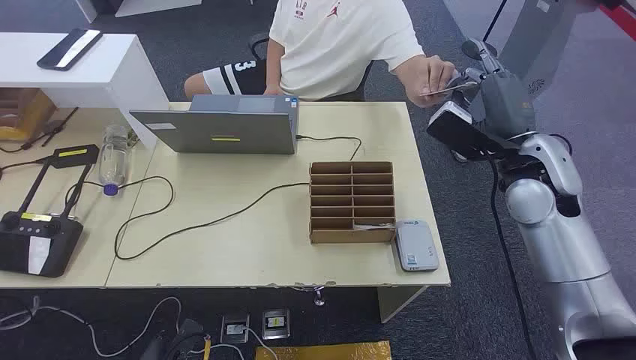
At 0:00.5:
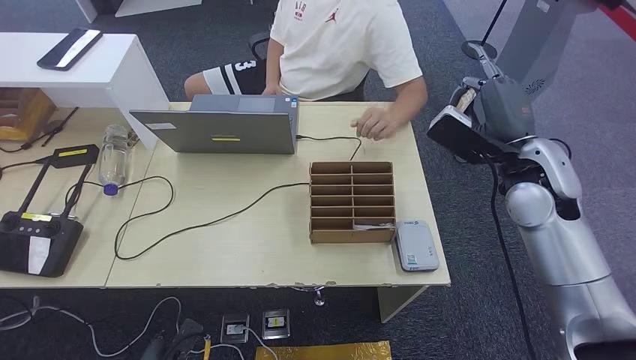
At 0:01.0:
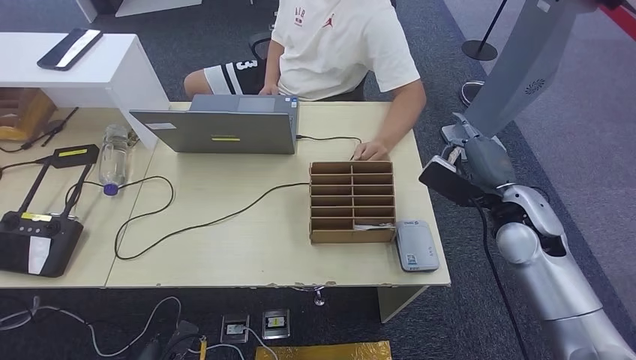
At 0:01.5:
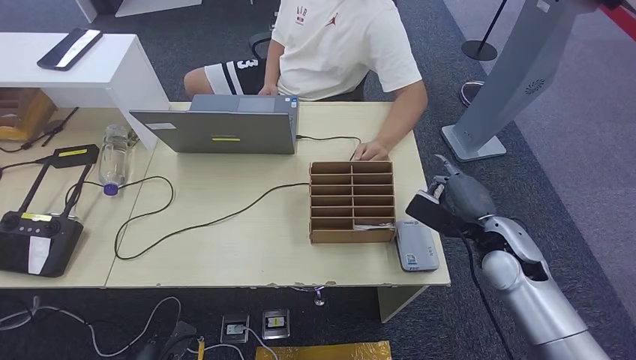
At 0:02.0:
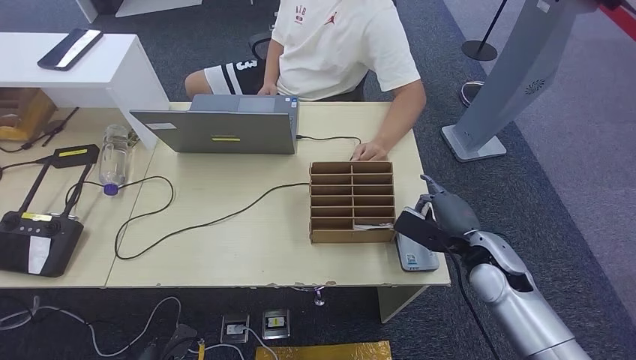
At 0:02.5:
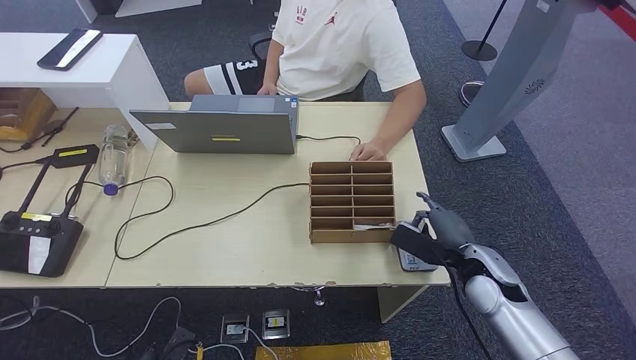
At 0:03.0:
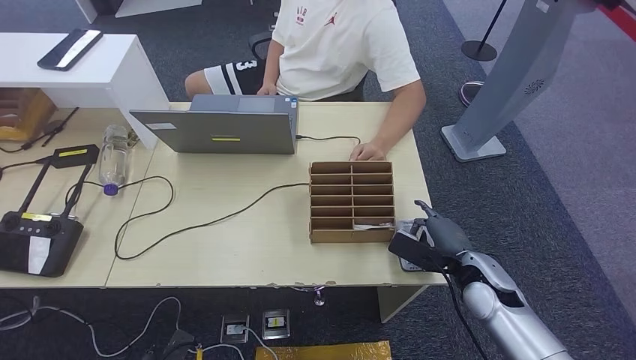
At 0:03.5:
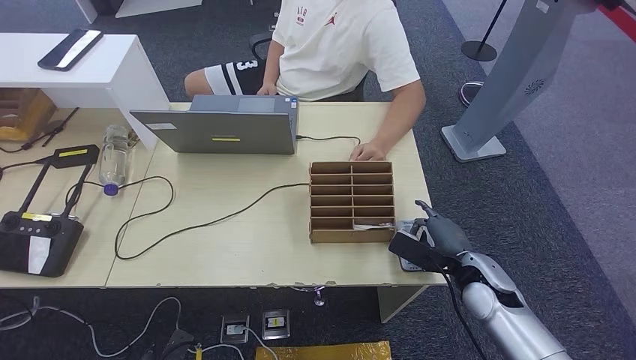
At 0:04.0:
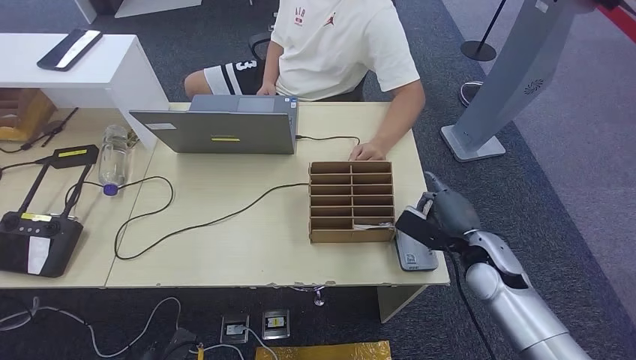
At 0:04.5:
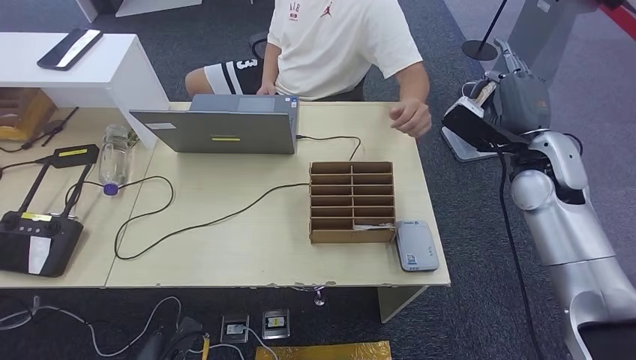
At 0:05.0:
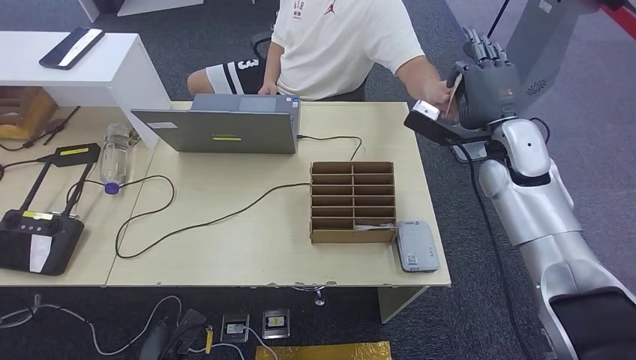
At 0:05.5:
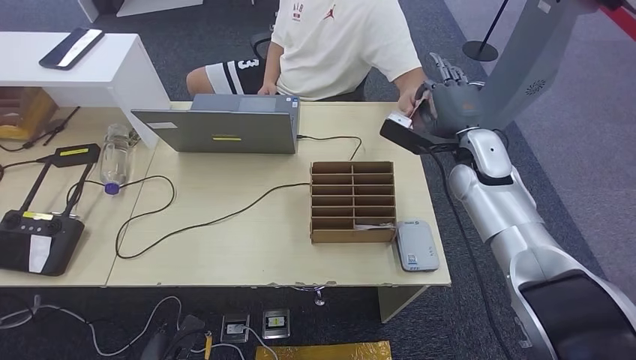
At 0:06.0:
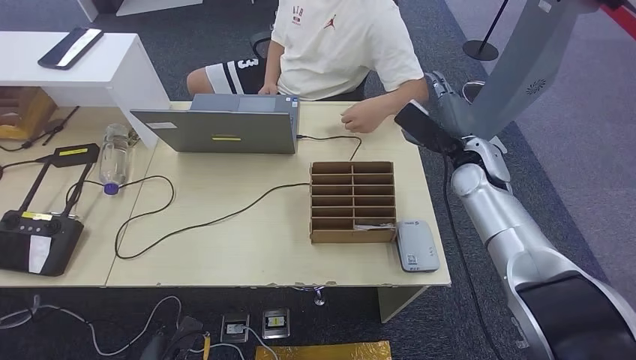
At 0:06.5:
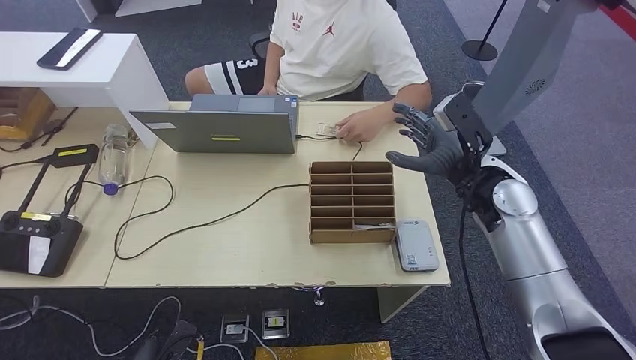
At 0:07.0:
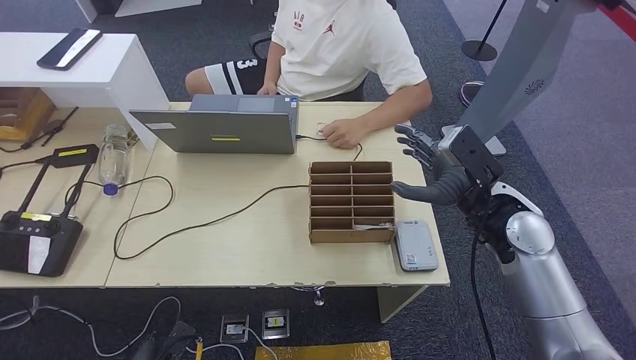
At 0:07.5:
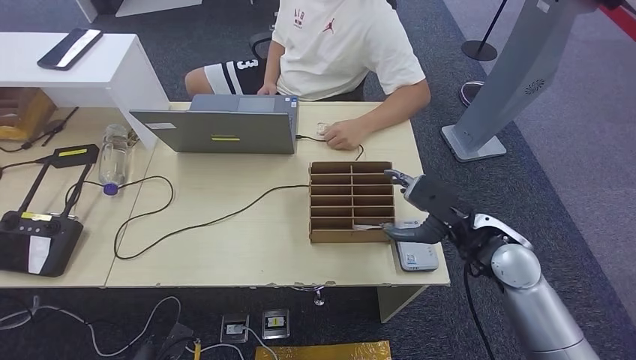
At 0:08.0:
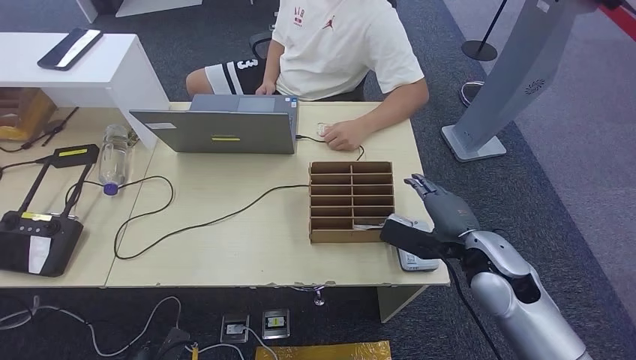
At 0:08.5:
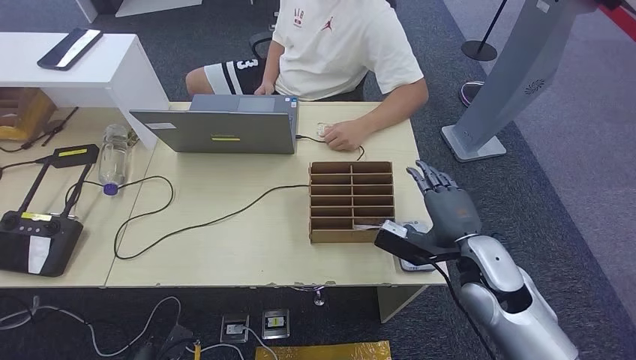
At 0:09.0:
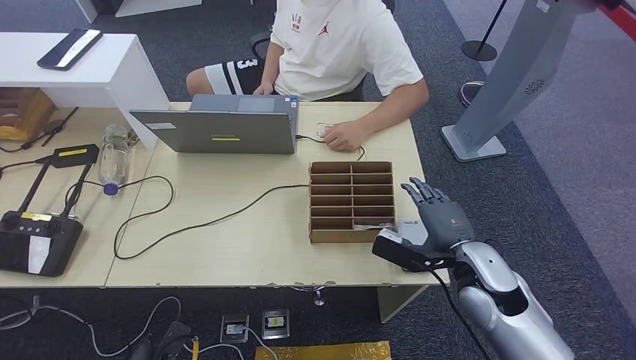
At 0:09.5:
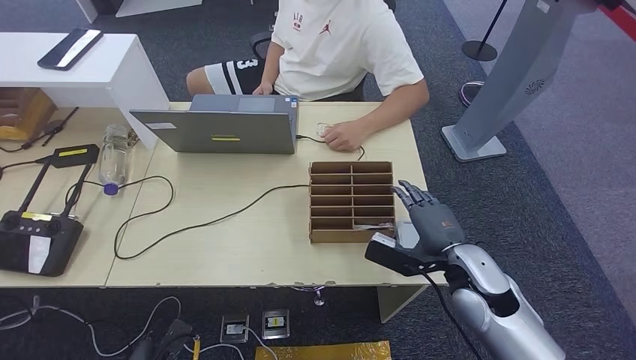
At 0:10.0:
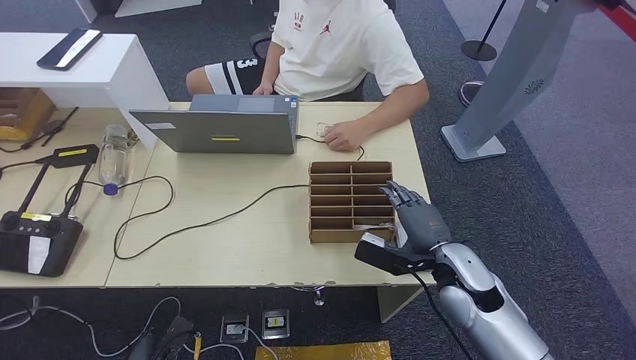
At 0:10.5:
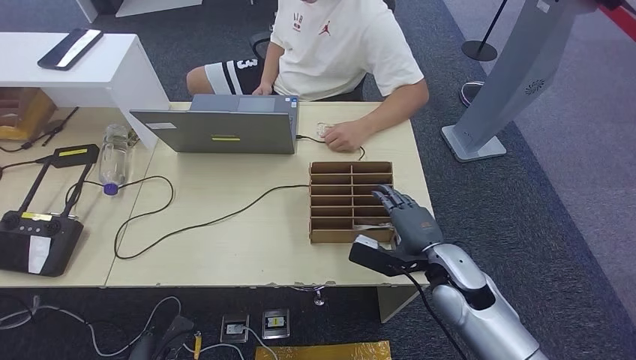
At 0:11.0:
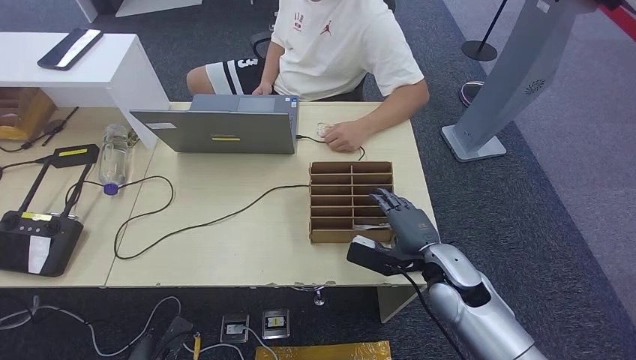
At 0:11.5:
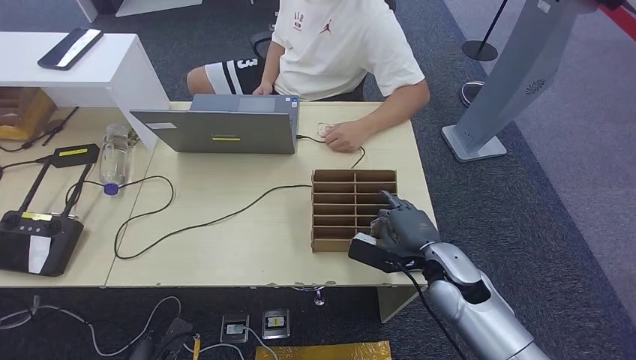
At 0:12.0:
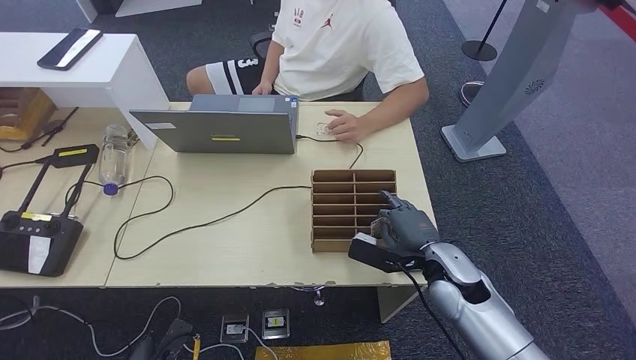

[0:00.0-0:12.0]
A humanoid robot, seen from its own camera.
Step, 0:00.0 to 0:00.5: Take the ID card from the person's hand.
Step, 0:01.0 to 0:04.0: Place the ID card on the card reader.
Step, 0:04.5 to 0:07.5: Hand the ID card to the person.
0:02.0 to 0:04.0: The hands move only a little.
0:04.0 to 0:06.0: The right hand travels forward and upward by approximately 15 cm.
0:06.0 to 0:08.0: The right hand goes roughly 15 cm backward.
0:08.0 to 0:10.0: The right hand ends up about 5 cm from where it was.
0:10.0 to 0:12.0: The hands make only small movements.

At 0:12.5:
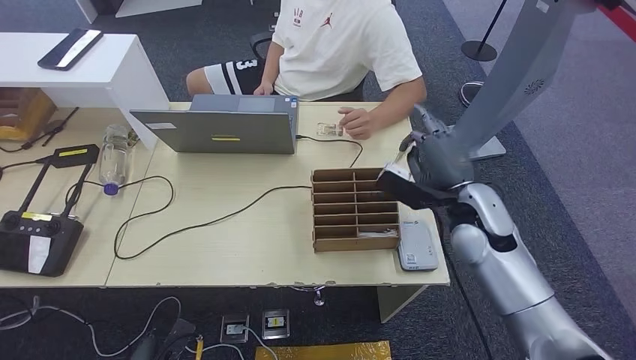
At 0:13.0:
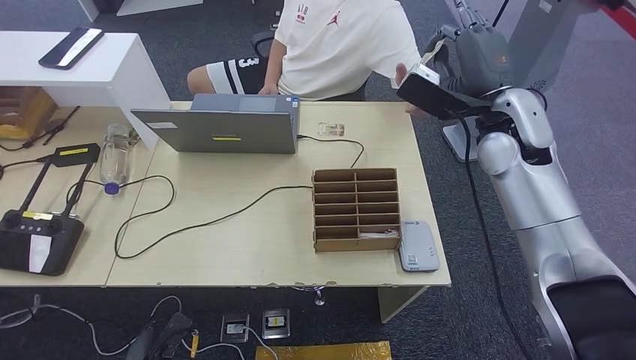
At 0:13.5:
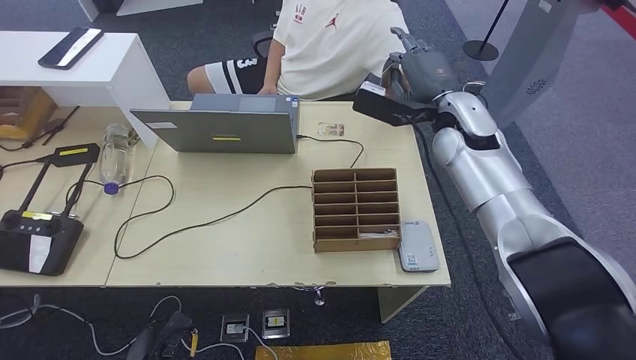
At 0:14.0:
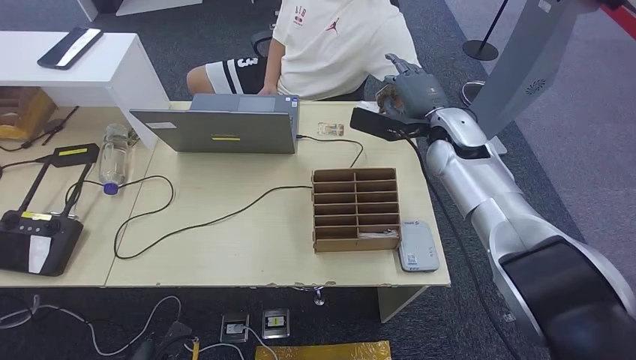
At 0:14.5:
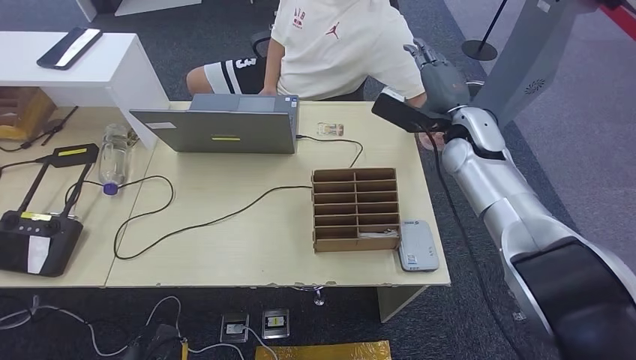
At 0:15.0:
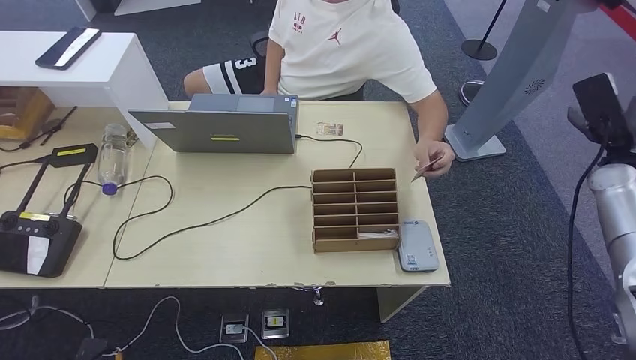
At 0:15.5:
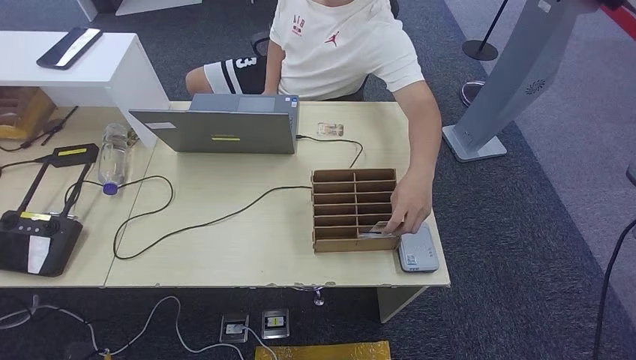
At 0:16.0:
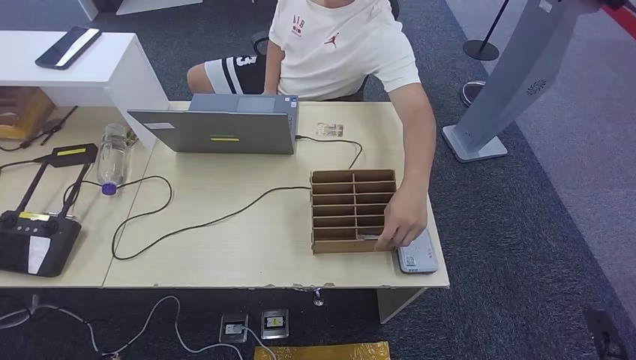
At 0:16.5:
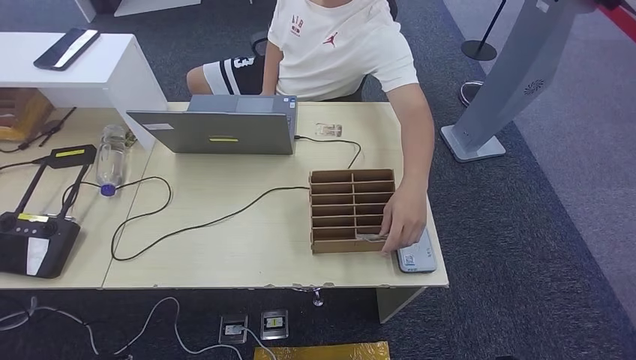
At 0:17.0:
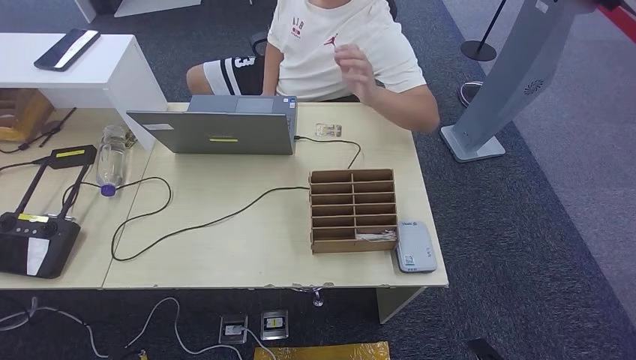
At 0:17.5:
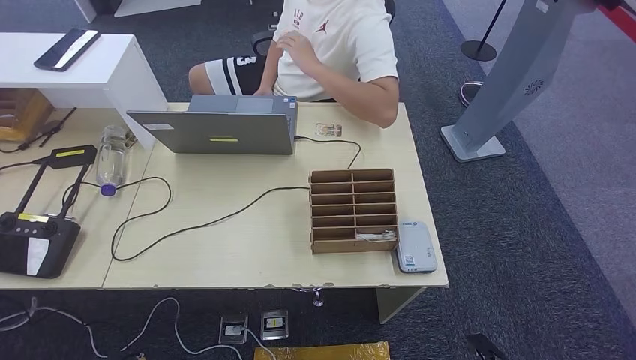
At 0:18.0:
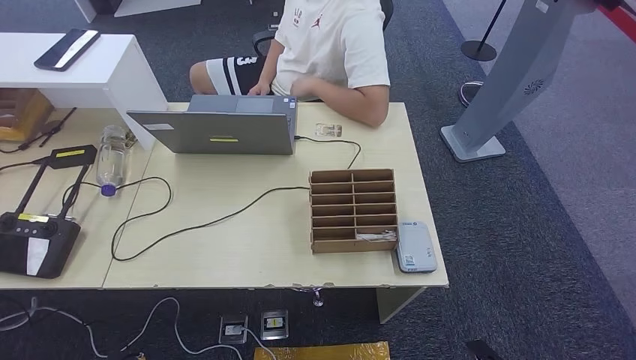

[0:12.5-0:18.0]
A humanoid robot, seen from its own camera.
Step, 0:13.5 to 0:18.0: Hand the room key to the person.
0:12.5 to 0:14.5: The right hand heads forward and upward, covering approximately 15 cm.
0:14.5 to 0:16.0: The right hand heads to the right, backward and downward, covering about 50 cm. The left hand goes some 10 cm to the left.
0:16.0 to 0:18.0: The right hand shifts about 30 cm to the left, downward and backward. The left hand shifts approximately 5 cm to the right.
